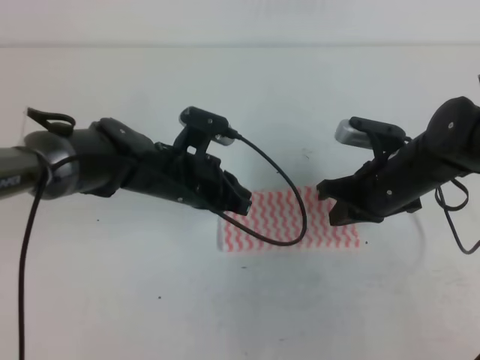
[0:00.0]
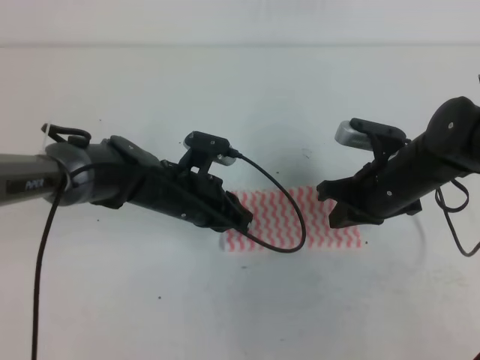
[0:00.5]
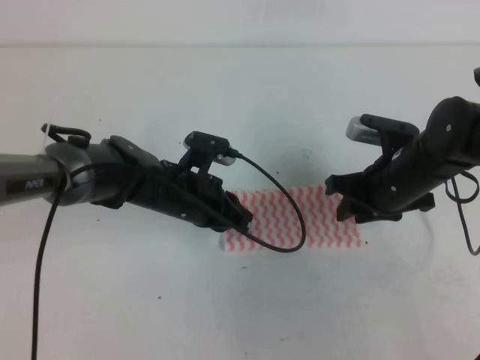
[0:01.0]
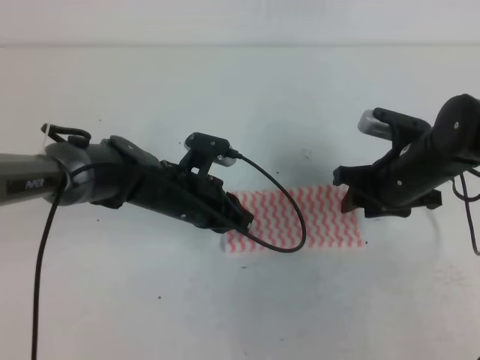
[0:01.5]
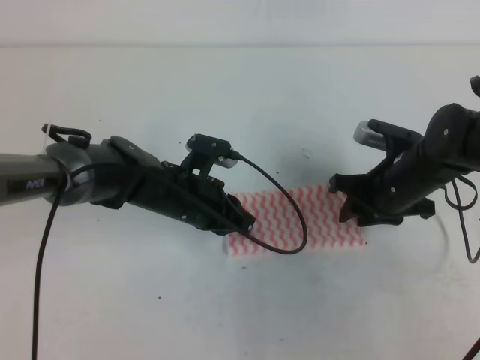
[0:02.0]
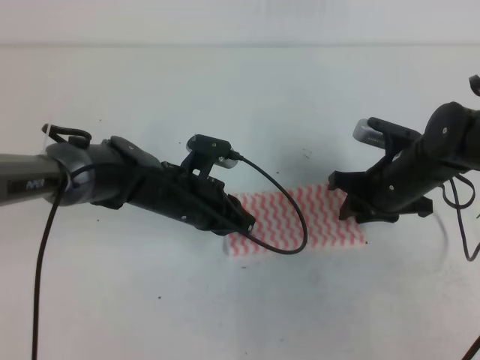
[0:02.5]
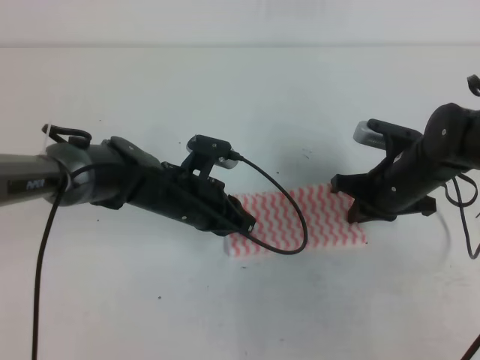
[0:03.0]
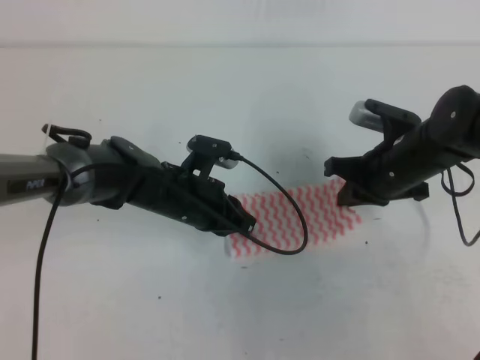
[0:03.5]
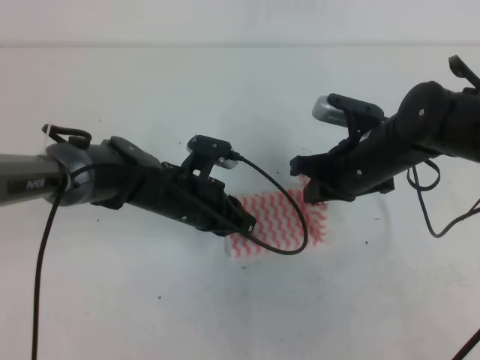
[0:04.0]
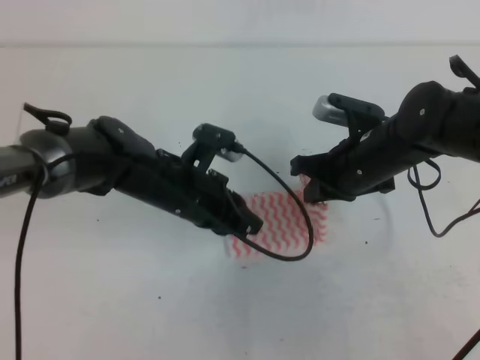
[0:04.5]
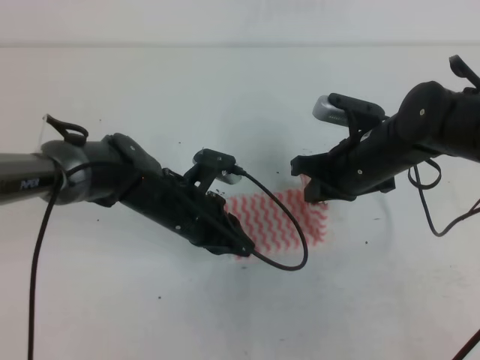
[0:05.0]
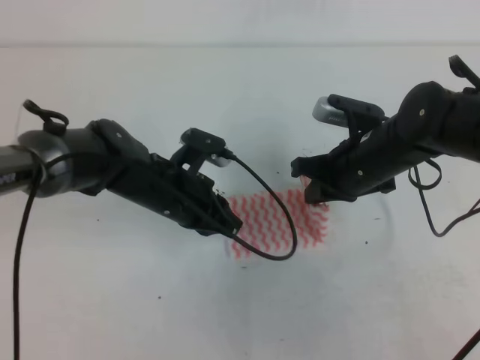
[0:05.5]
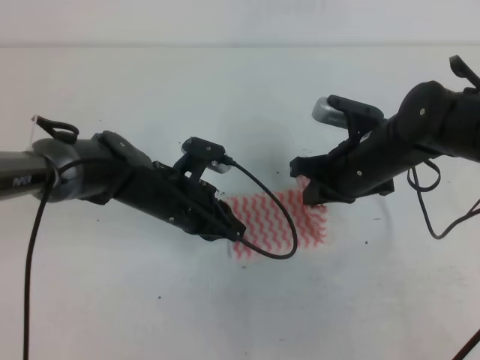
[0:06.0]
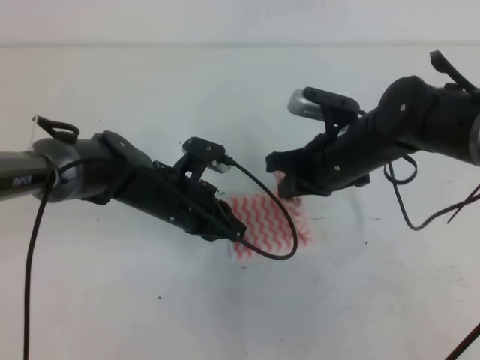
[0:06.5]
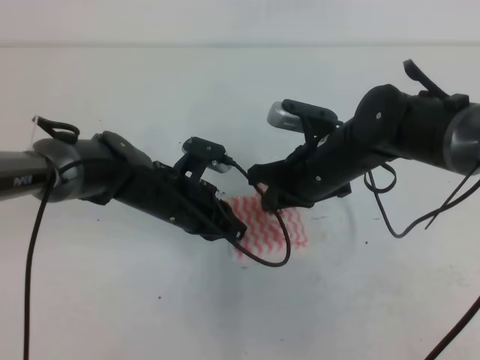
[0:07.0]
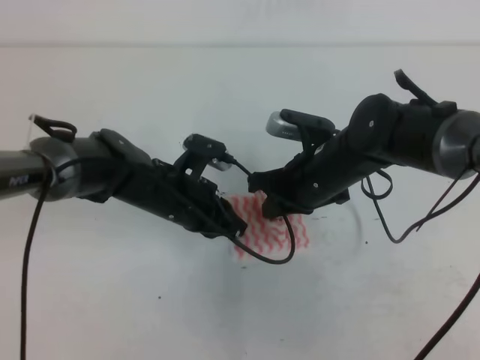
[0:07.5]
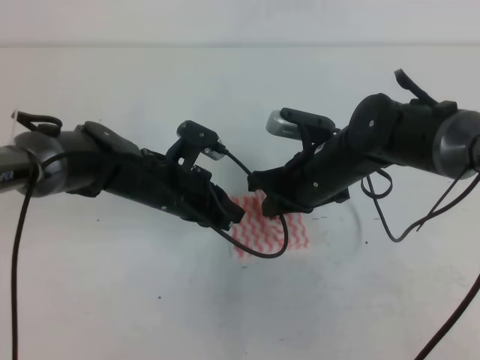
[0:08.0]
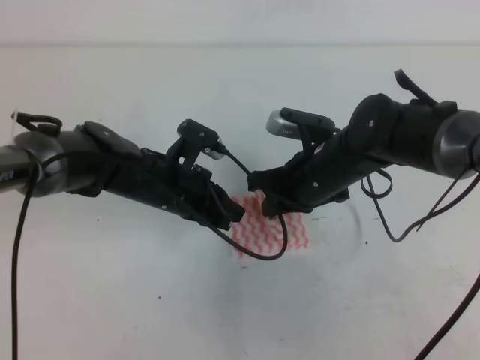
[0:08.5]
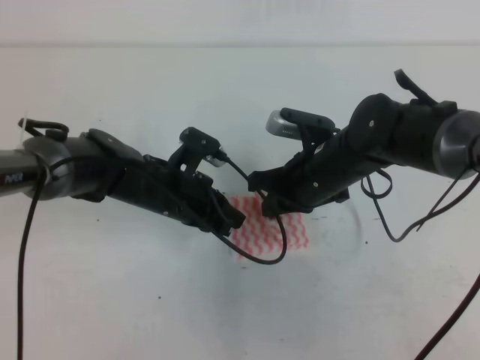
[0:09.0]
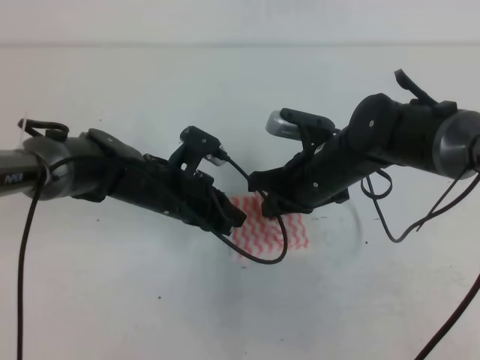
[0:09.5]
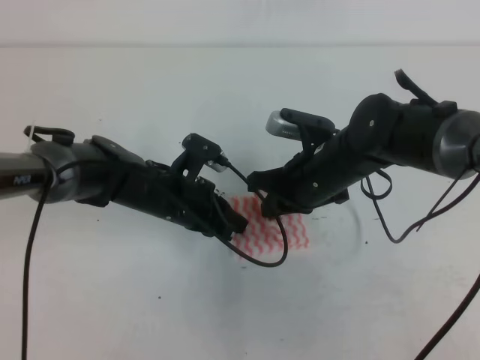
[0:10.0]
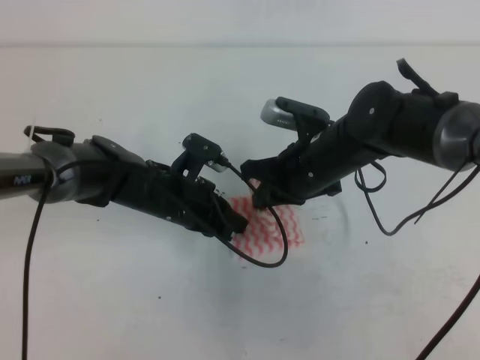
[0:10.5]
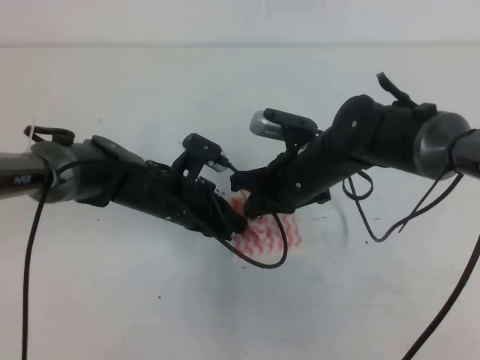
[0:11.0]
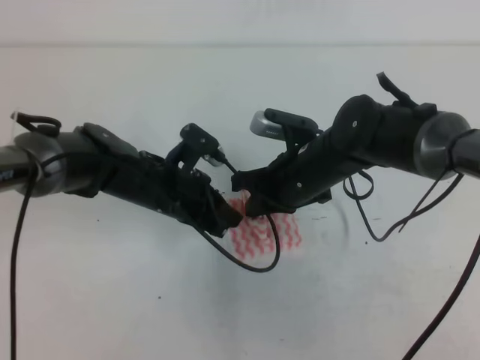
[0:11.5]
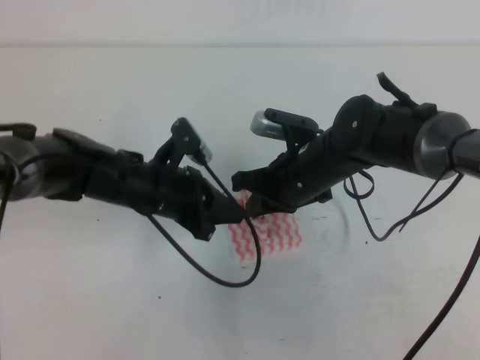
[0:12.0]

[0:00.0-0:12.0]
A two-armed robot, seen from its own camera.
0:00.0 to 0:02.0: The right gripper opens up.
0:02.0 to 0:04.0: The right gripper shifts by roughly 5 cm, and closes.
0:04.0 to 0:06.0: The grippers move only a little.
0:06.0 to 0:08.0: The right gripper moves roughly 5 cm.
0:08.0 to 0:12.0: The grippers move only a little.

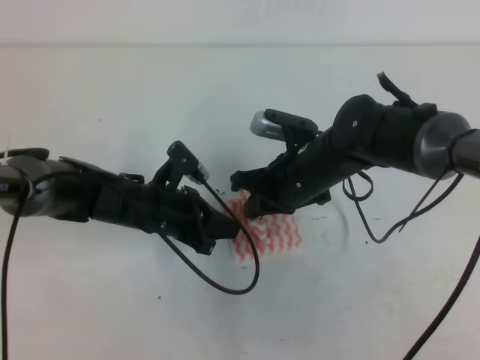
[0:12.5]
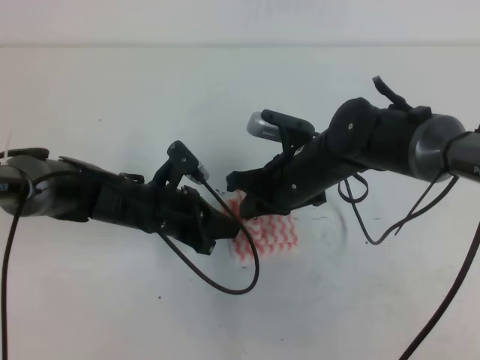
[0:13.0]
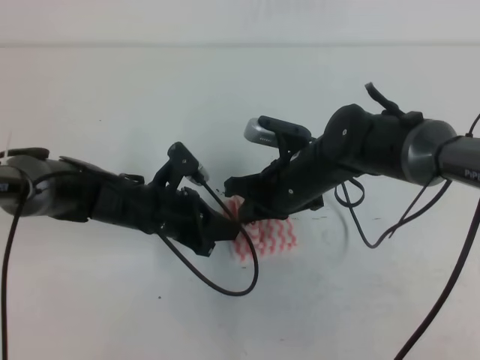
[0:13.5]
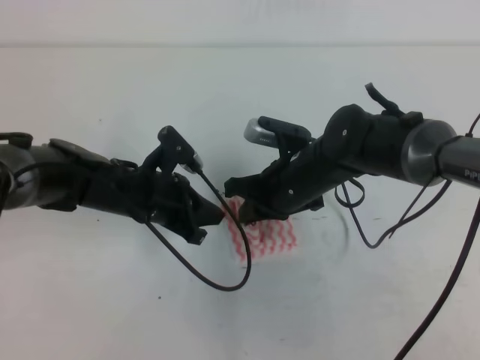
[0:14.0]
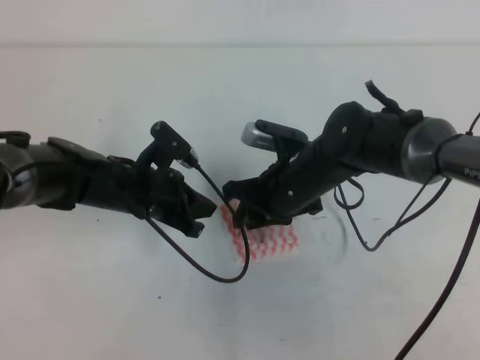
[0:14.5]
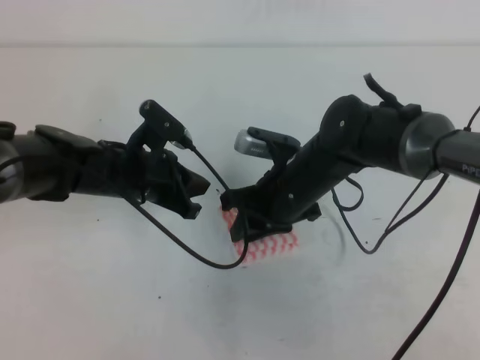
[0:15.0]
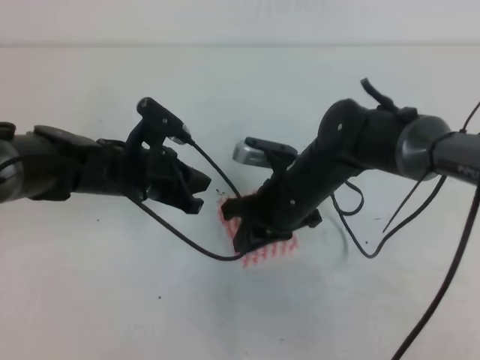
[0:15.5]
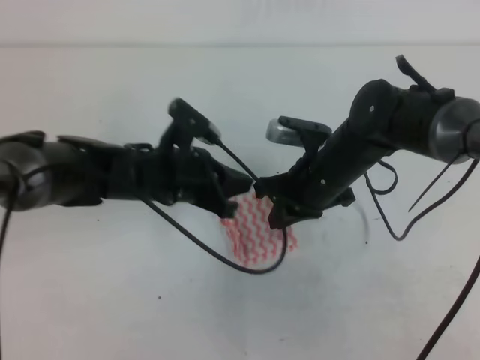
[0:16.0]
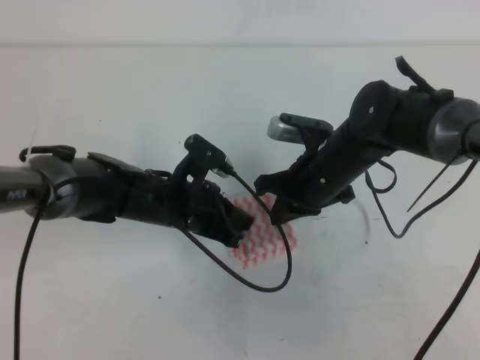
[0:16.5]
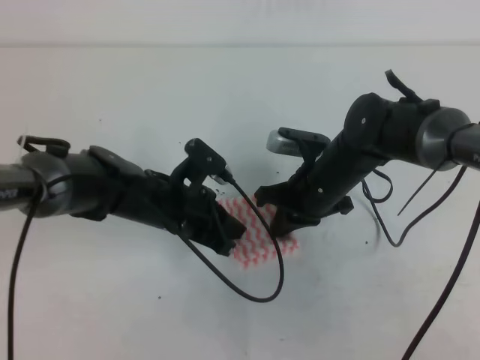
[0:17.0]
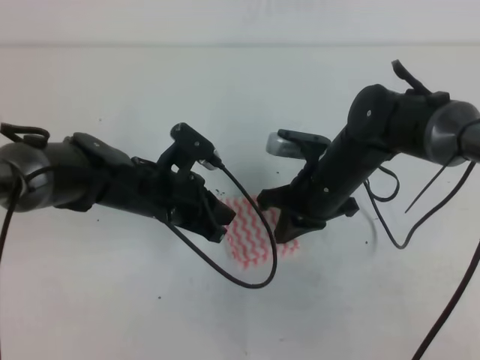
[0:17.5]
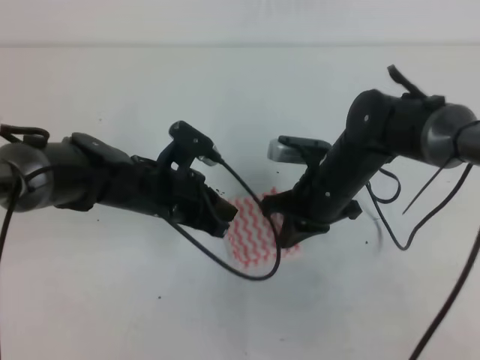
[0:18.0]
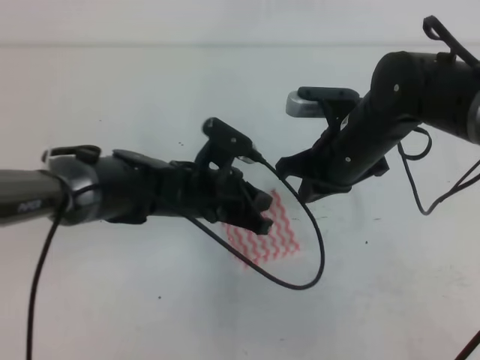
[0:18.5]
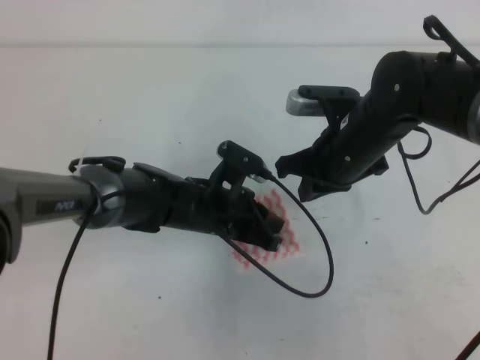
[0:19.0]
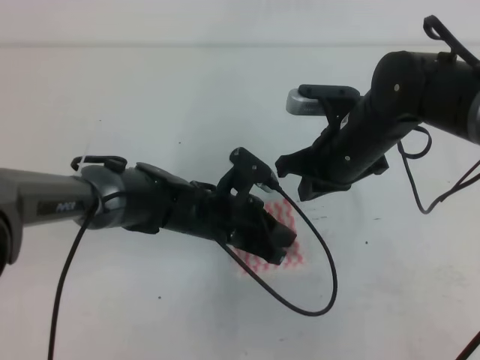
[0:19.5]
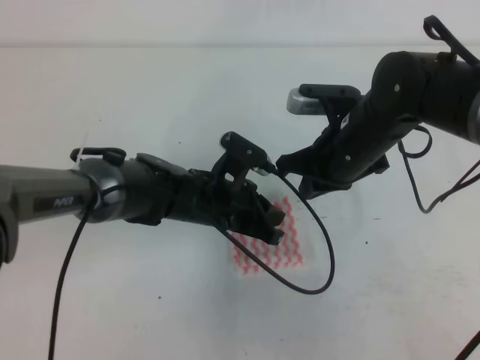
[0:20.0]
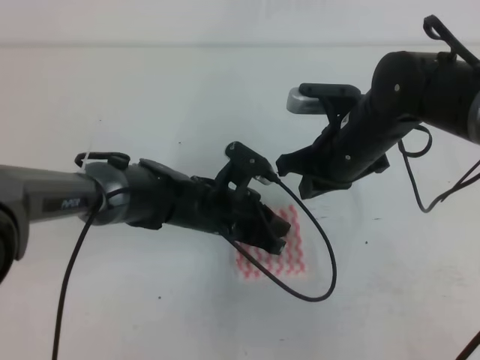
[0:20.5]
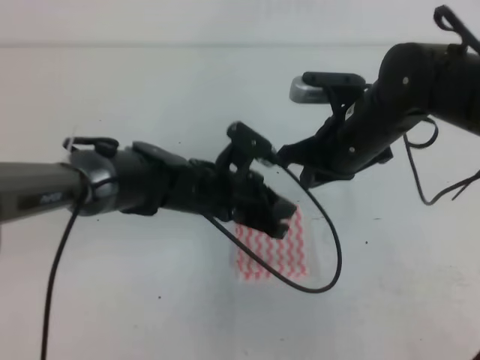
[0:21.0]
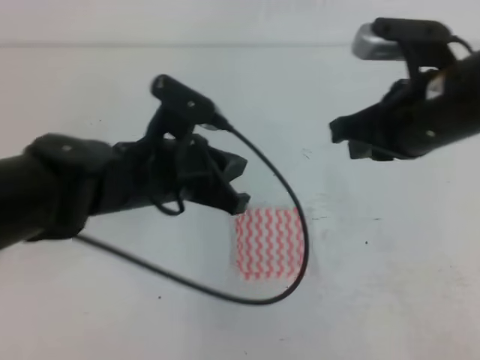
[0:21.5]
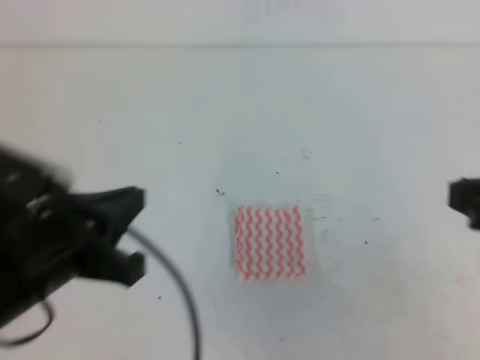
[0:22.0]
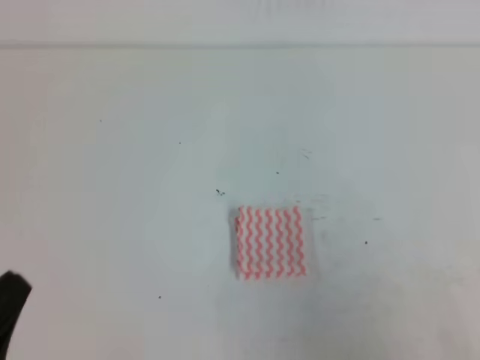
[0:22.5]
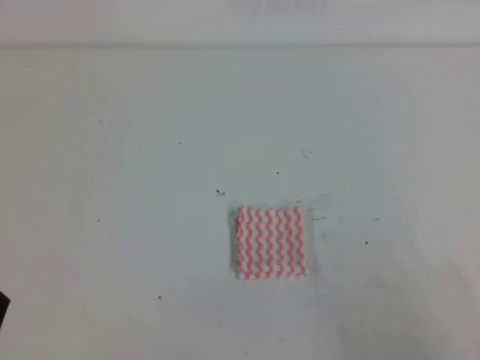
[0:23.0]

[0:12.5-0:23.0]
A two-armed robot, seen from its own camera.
0:12.5 to 0:14.5: The right gripper opens up.
0:14.5 to 0:16.5: The right gripper closes up; the left gripper moves about 5 cm.
0:16.5 to 0:19.0: The right gripper travels upward by roughly 5 cm.
0:19.0 to 0:21.0: The grippers stay close to where they were, moving slightly.
0:21.0 to 0:23.0: The left gripper travels backward and to the left by roughly 35 cm; the right gripper goes some 35 cm backward and to the right.
